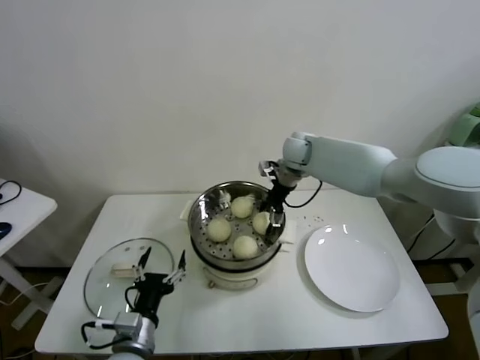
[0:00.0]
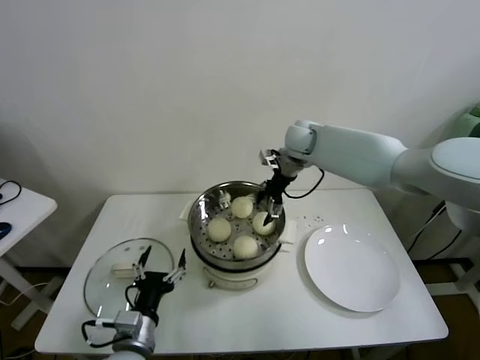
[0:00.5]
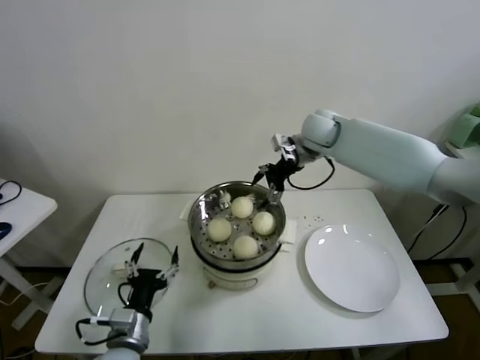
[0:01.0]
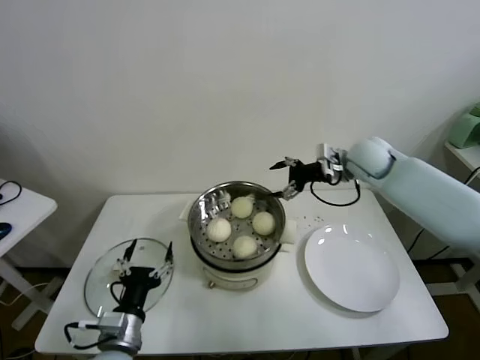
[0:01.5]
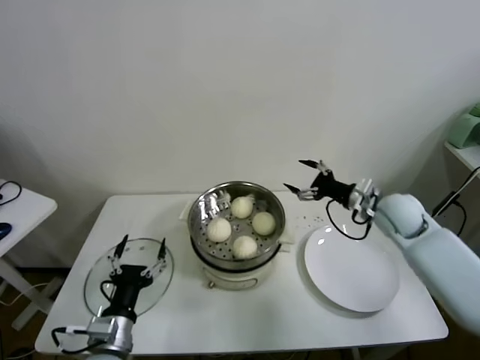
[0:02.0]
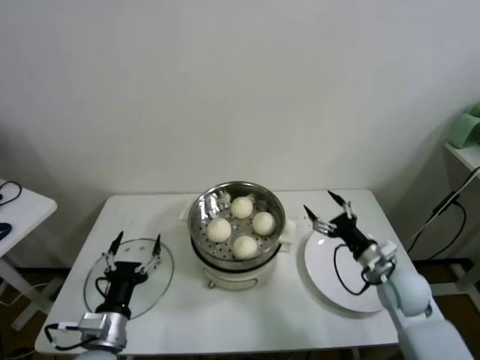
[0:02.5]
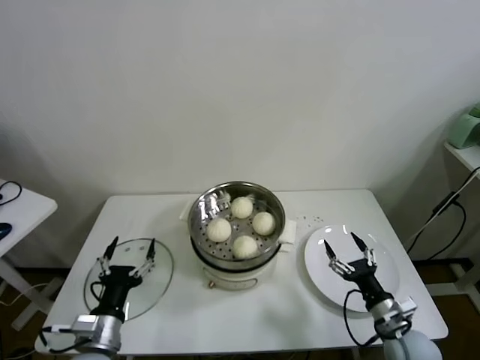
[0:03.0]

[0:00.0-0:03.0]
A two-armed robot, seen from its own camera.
Task of the whole recording: take steamed baozi put them in steamer.
0:00.0 to 0:01.5: The right gripper shifts roughly 15 cm to the right and backward.
0:01.5 to 0:03.0: The right gripper moves backward and downward, roughly 40 cm.
